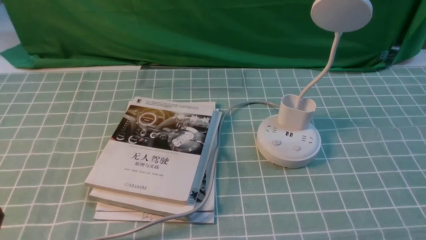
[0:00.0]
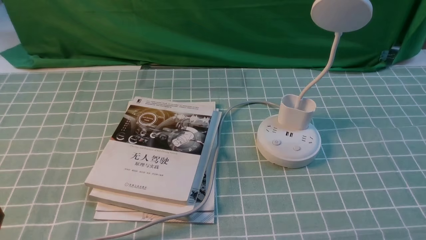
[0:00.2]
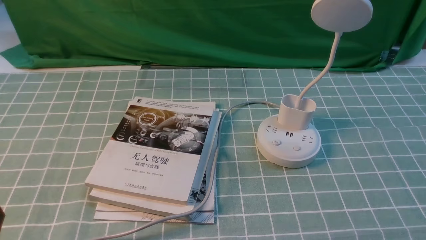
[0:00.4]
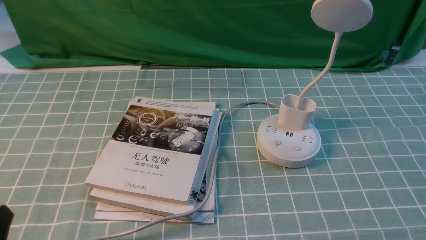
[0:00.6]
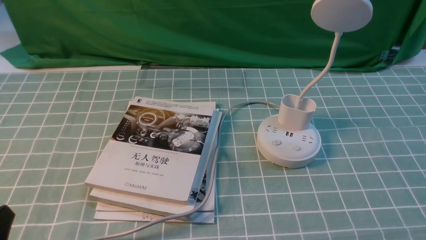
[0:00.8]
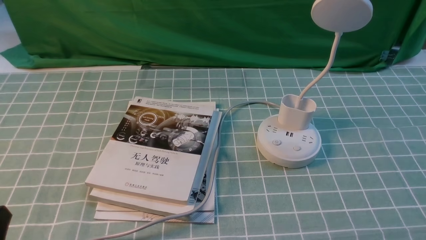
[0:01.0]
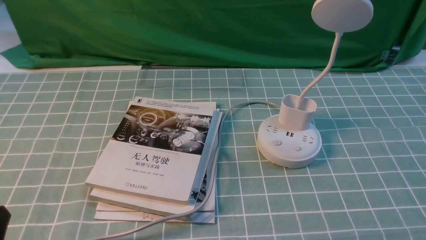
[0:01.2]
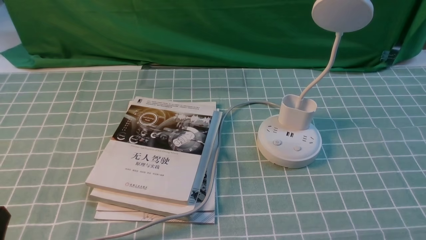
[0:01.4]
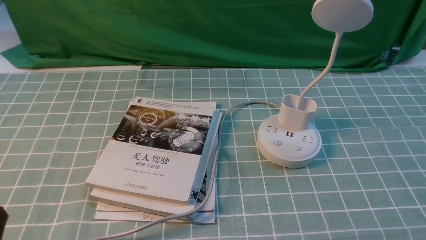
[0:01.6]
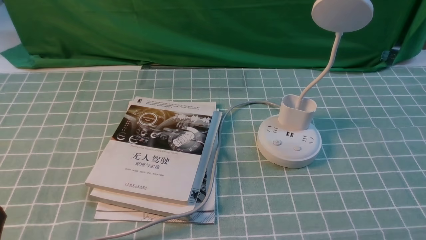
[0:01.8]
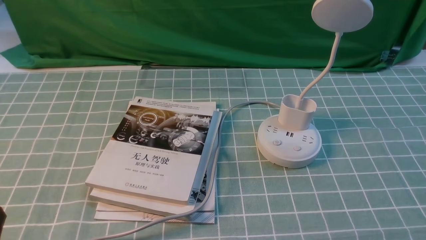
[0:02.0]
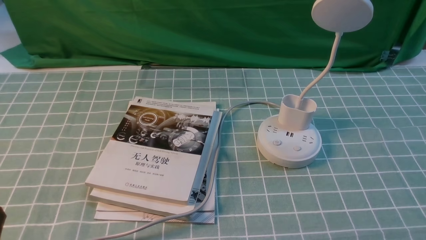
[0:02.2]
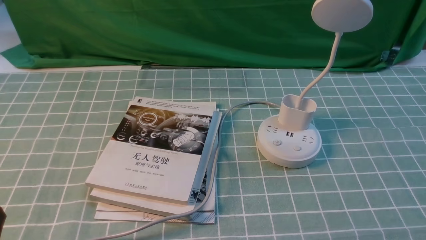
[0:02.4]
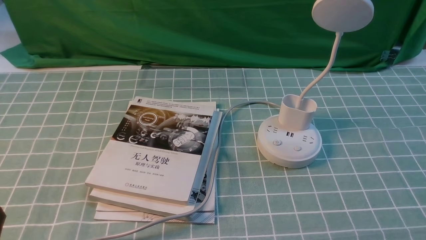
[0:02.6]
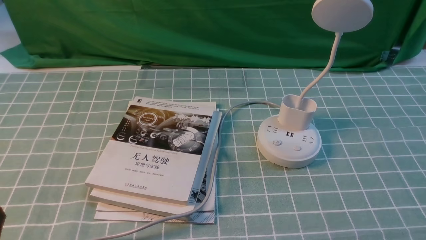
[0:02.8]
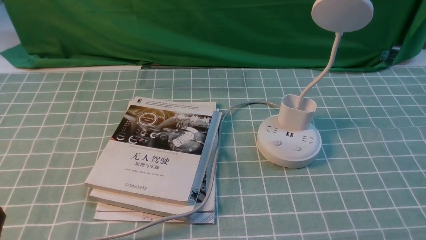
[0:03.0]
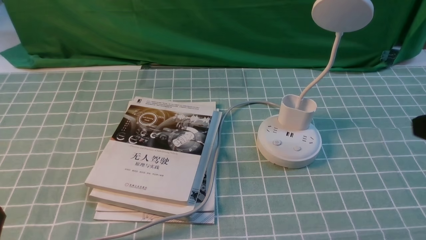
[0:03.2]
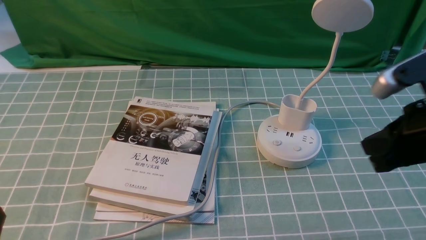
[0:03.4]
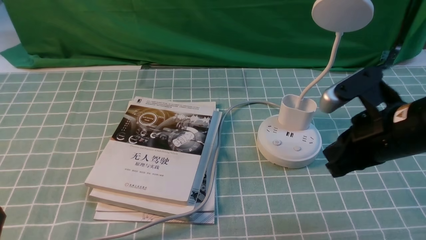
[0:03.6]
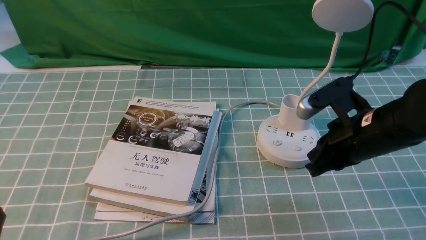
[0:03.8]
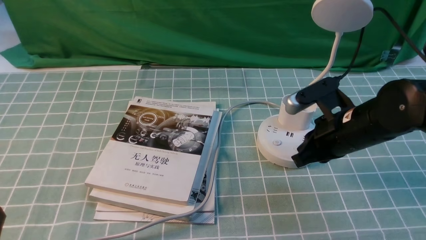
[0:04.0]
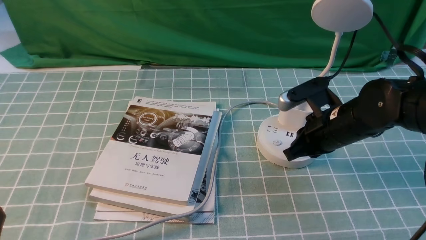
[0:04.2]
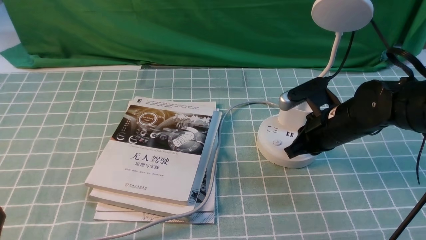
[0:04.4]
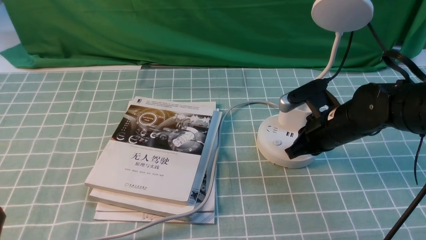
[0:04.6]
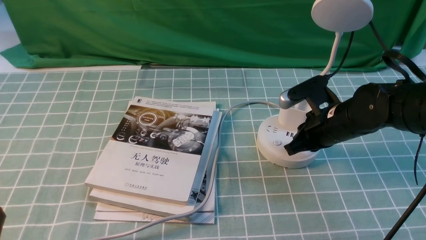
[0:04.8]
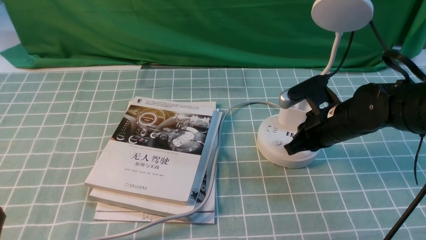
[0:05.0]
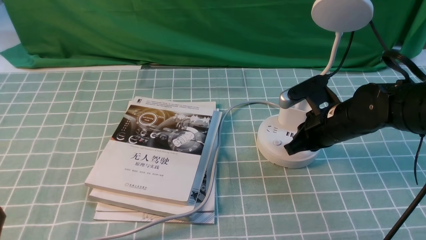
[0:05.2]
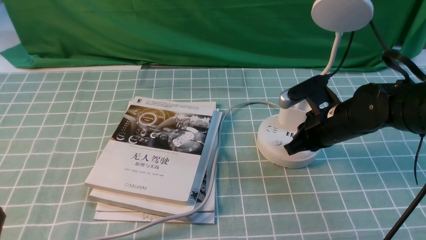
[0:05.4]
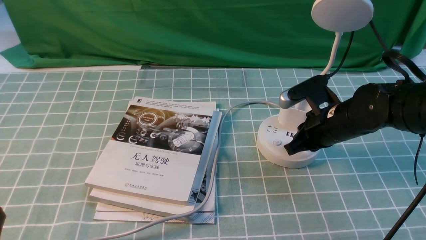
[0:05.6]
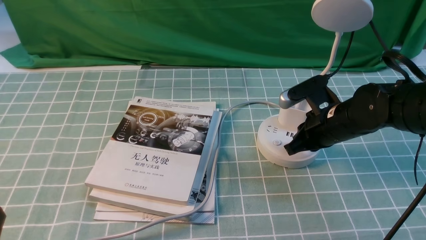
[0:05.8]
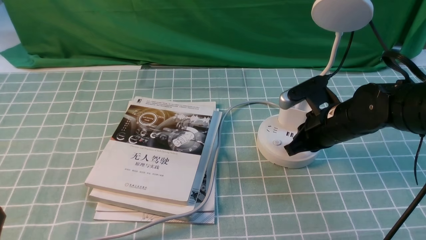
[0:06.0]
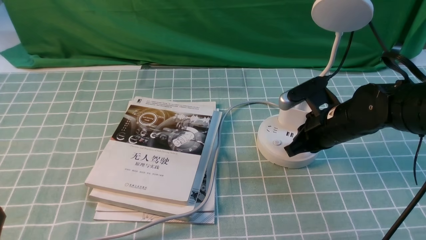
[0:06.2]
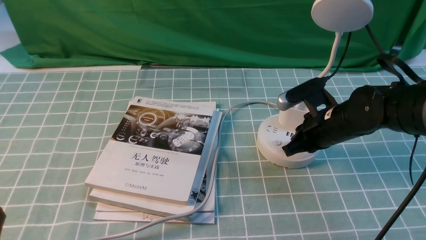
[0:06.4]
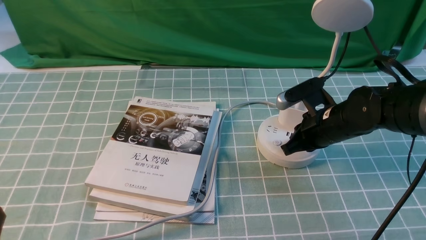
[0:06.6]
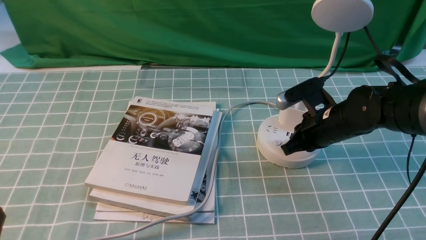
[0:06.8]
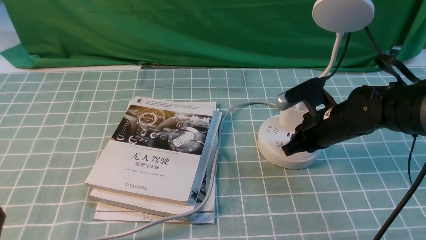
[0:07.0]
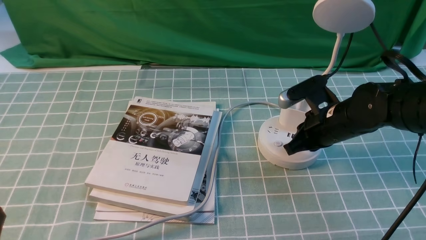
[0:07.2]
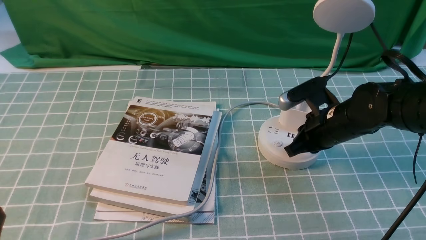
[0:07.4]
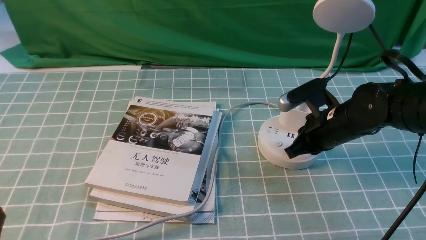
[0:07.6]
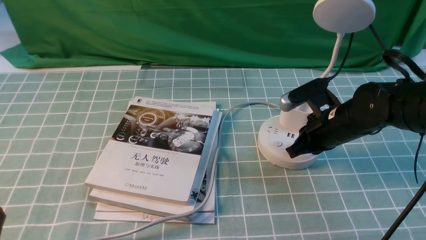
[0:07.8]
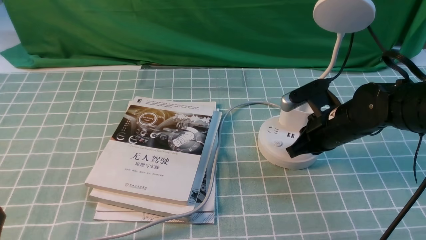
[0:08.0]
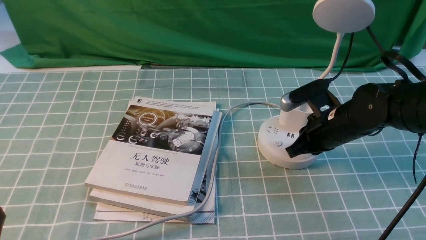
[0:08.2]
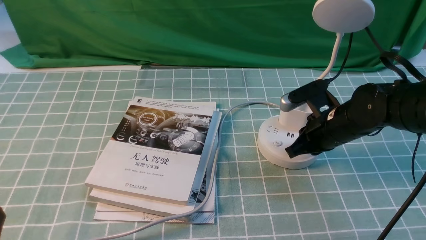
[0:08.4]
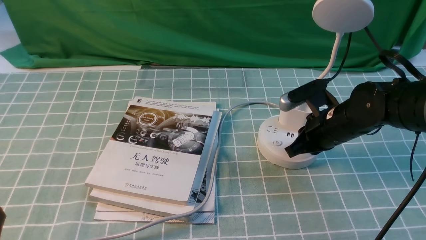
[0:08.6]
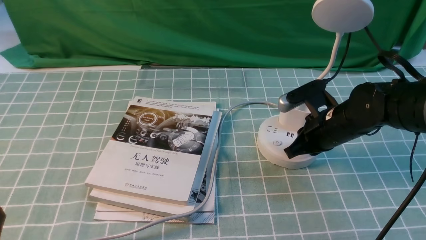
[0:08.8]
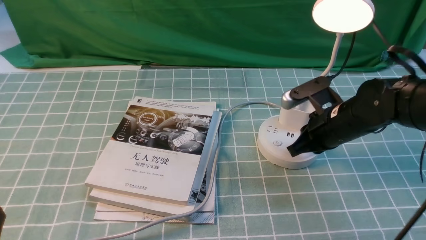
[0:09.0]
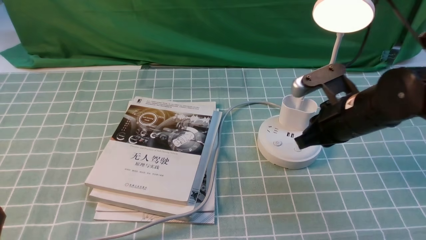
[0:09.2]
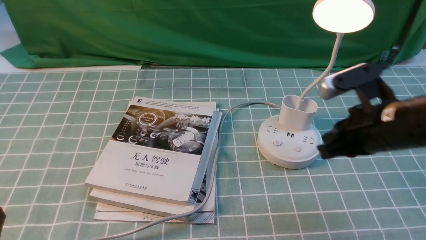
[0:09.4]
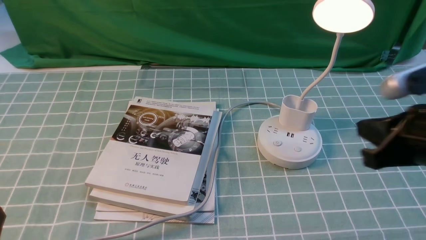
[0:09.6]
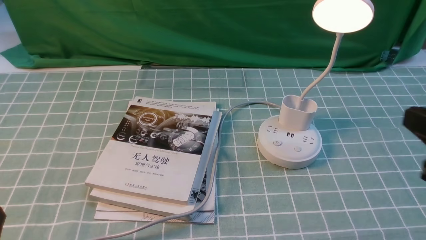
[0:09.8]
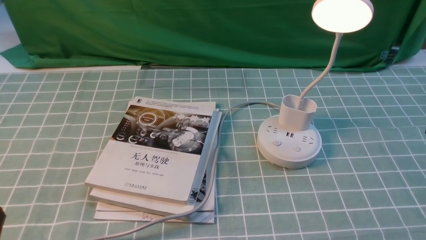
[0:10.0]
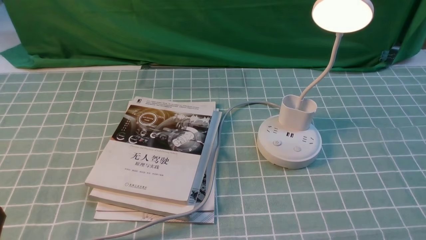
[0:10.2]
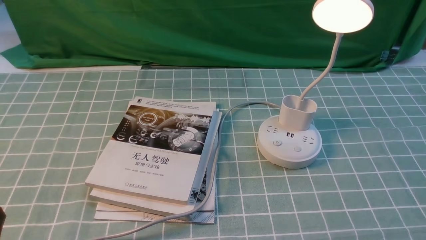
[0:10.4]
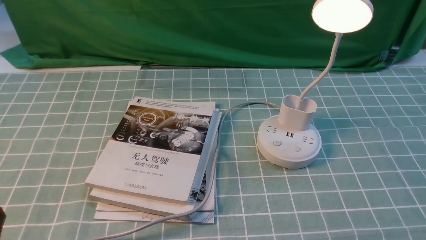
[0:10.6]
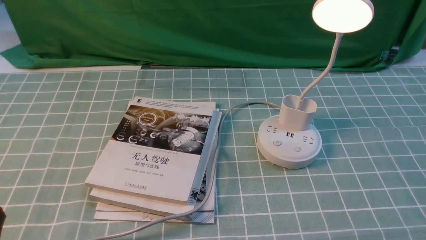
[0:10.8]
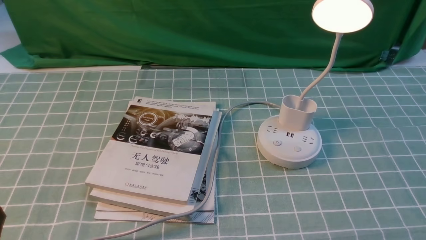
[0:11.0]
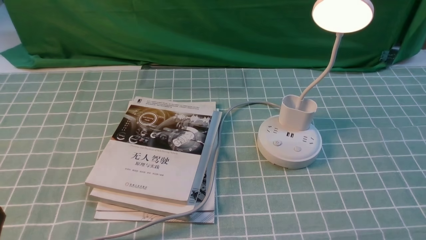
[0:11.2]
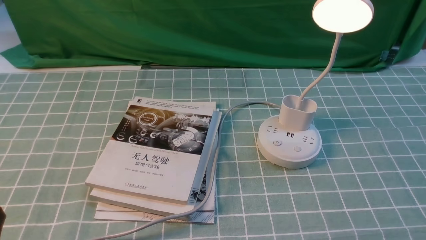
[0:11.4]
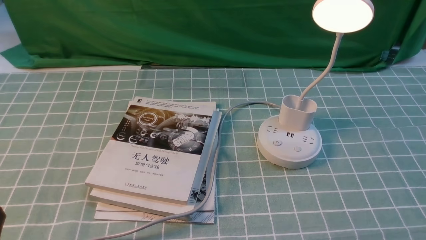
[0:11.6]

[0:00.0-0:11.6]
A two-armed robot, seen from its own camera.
Step, 0:00.0 to 0:09.0: use the right arm to press the button switch on the lamp holder.
0:02.8 to 0:04.4: The right gripper goes about 30 cm forward and to the left.
0:04.4 to 0:05.8: The two grippers keep their place.
0:05.8 to 0:08.8: Neither gripper changes place.
0:08.8 to 0:10.2: The right gripper is displaced backward, upward and to the right by approximately 30 cm.

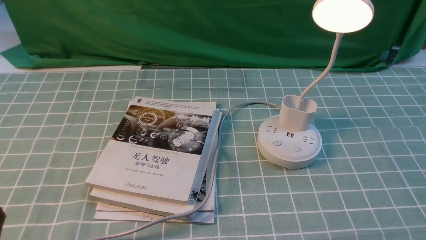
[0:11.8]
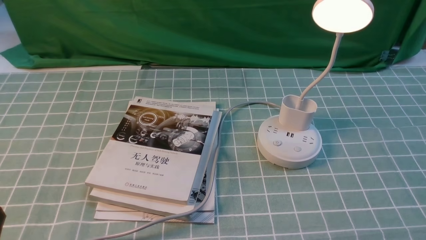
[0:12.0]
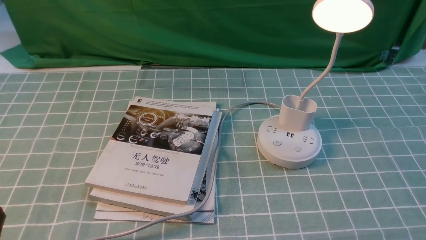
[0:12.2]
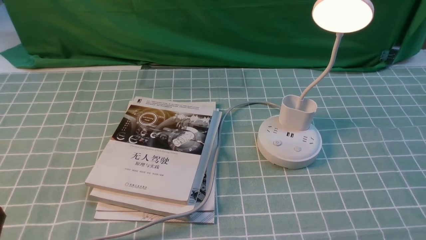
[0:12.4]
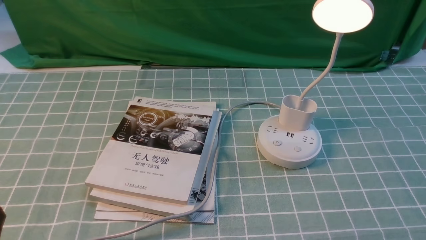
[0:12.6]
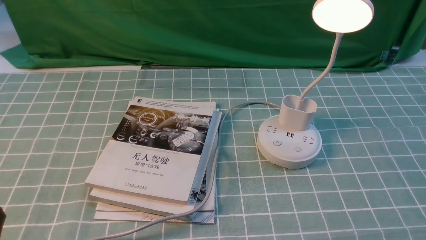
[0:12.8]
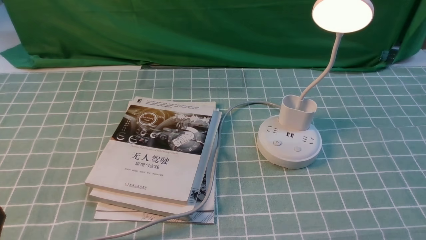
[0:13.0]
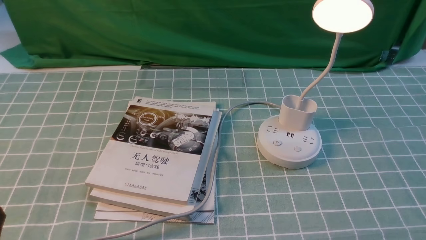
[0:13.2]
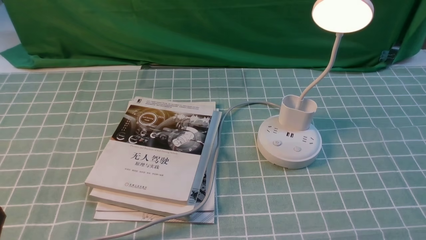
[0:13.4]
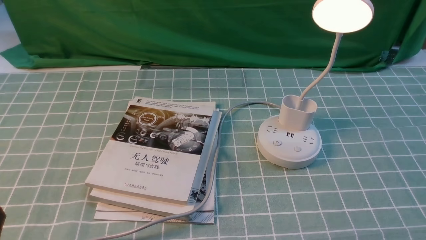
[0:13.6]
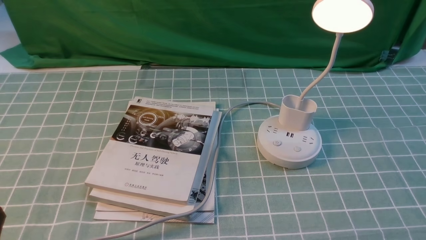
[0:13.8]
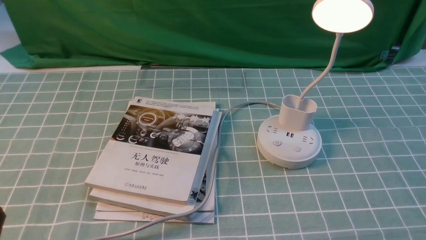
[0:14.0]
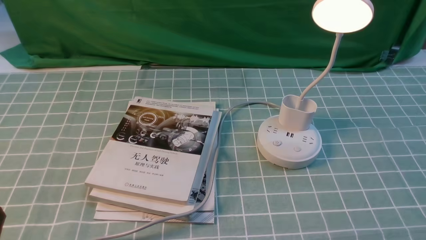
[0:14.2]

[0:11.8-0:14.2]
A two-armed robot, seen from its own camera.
0:11.8 to 0:14.2: The two grippers keep their place.
